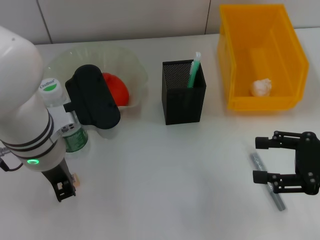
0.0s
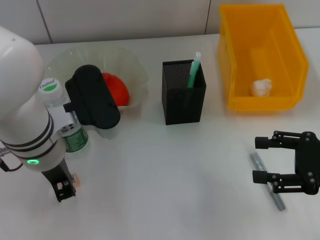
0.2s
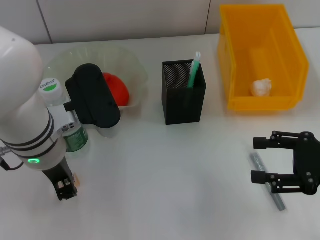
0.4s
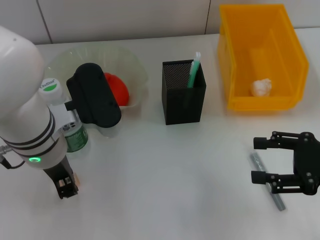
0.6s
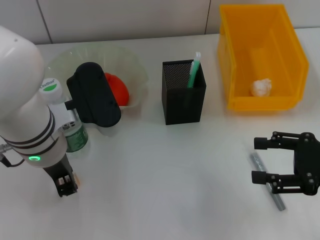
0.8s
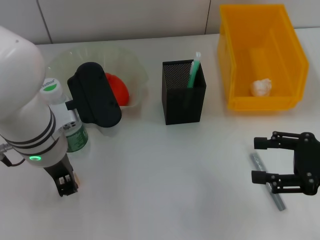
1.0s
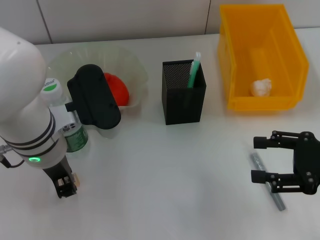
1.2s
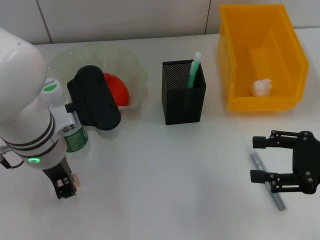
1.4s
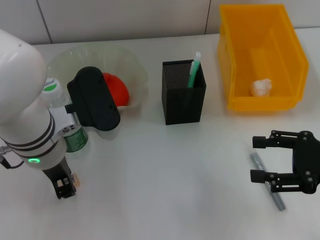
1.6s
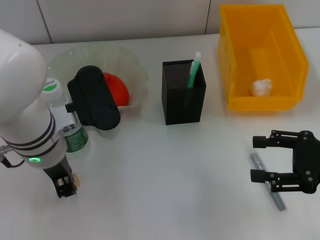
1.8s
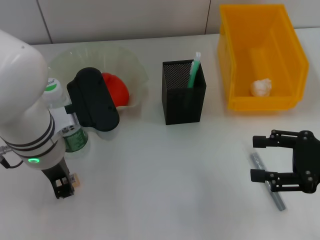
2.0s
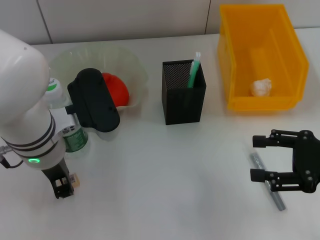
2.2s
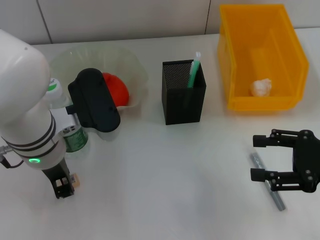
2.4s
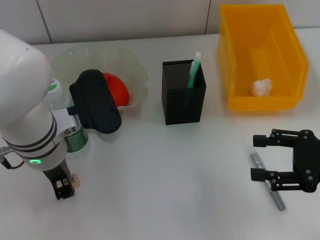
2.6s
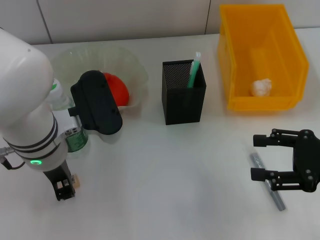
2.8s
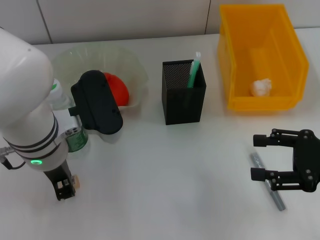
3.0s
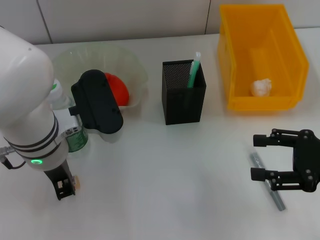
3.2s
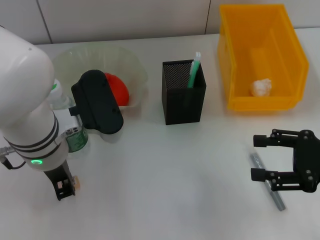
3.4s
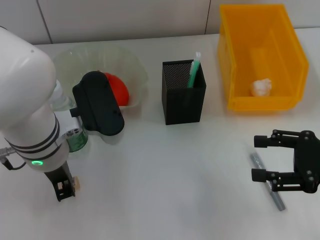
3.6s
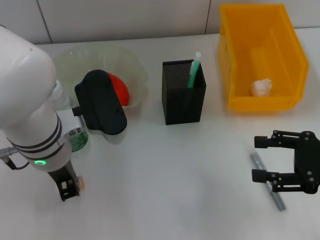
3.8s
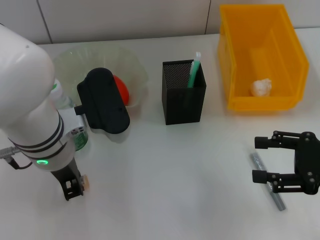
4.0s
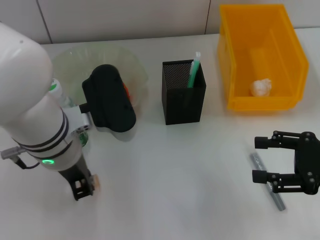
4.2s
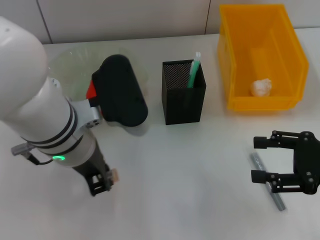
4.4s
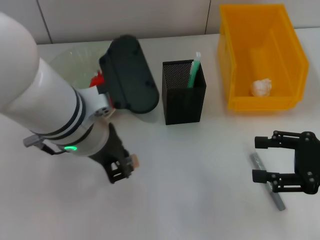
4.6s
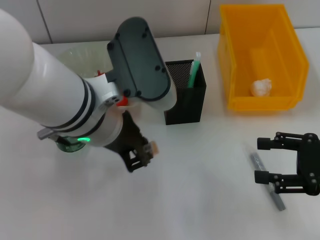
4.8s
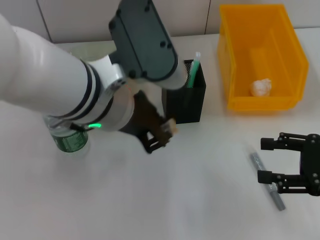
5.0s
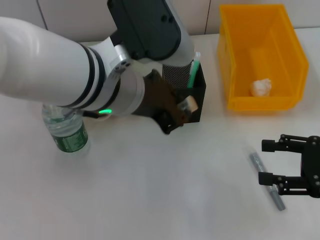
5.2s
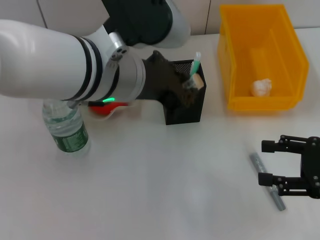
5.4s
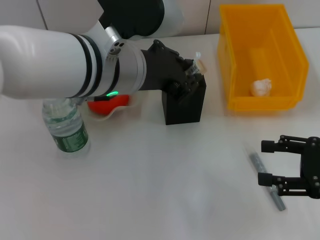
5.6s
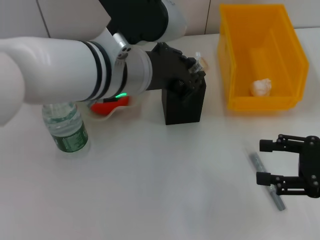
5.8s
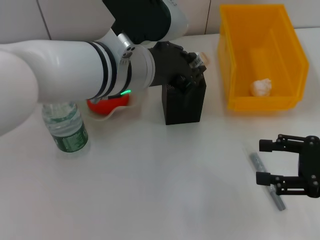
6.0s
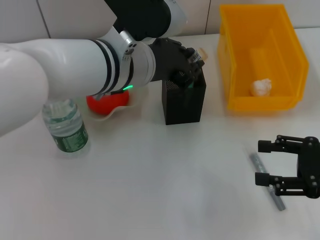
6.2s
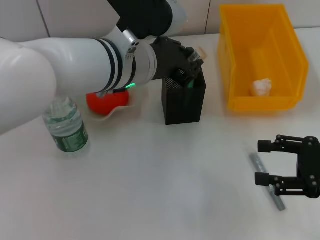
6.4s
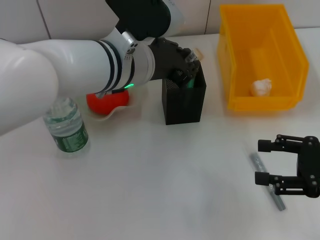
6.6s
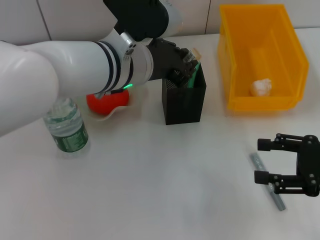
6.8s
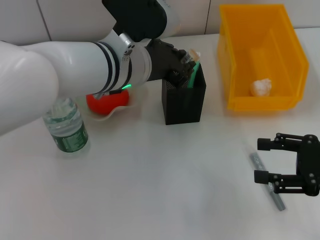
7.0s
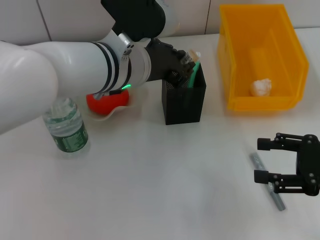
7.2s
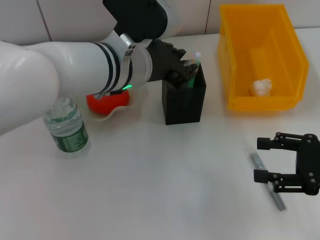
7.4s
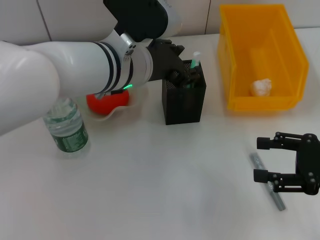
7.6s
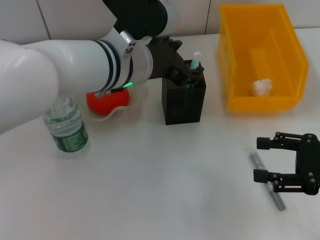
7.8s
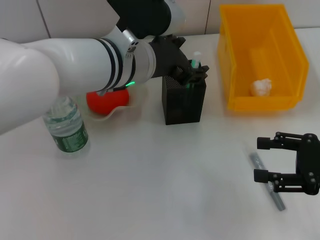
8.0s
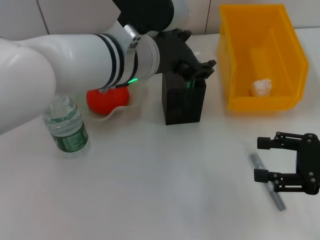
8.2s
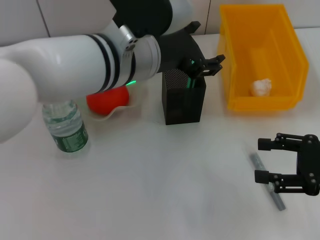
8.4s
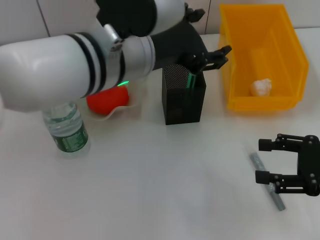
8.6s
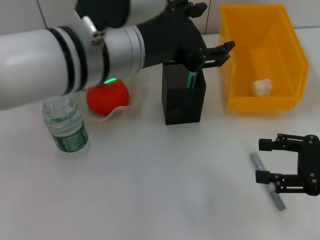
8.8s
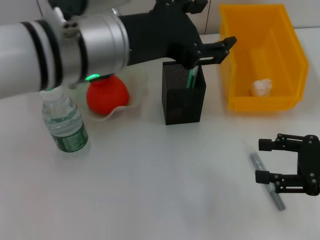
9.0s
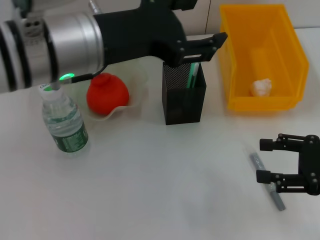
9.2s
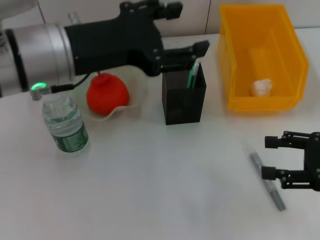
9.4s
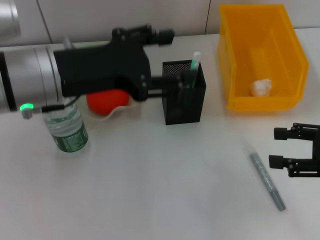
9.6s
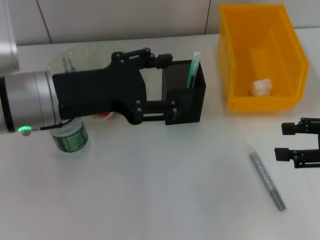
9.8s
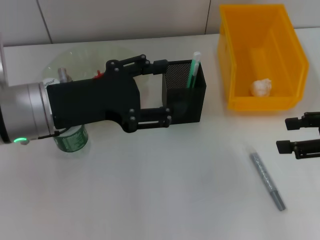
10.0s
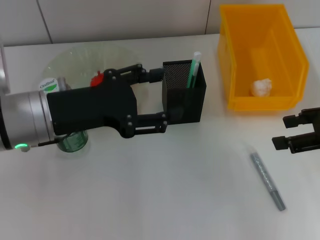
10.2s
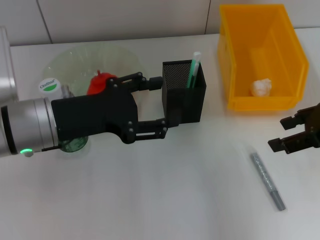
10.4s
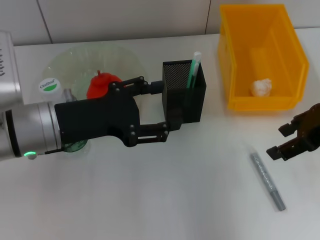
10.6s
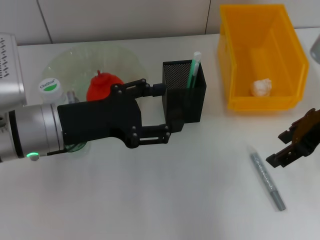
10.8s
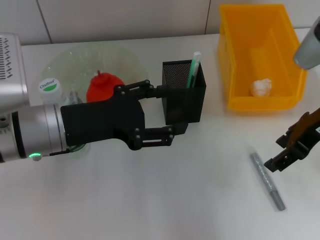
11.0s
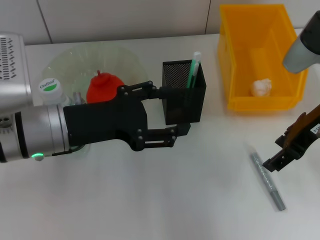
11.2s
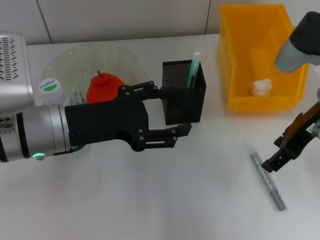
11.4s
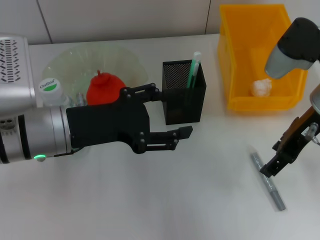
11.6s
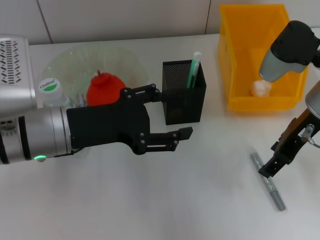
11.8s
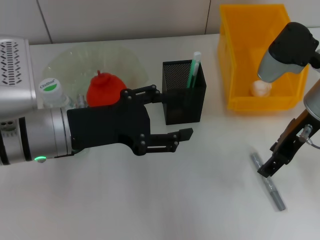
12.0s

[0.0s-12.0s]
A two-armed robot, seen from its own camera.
Step, 0.0s to 7.8s: Place the eraser into the pen holder with the left hand.
0.0s to 3.0s: Both grippers stay put.
3.0s to 4.4s: The grippers stay close to where they were, moving slightly.
4.4s to 6.0s: The left gripper is displaced to the right by some 5 cm.
6.0s to 7.6s: There are only small adjustments of the grippers.
7.6s to 9.0s: The left gripper shifts about 10 cm upward and backward, and opens its fingers.
9.0s to 10.4s: The right gripper goes some 10 cm upward and forward; the left gripper heads to the left and downward, covering some 15 cm.
10.4s to 12.0s: The right gripper heads to the left, covering some 10 cm.

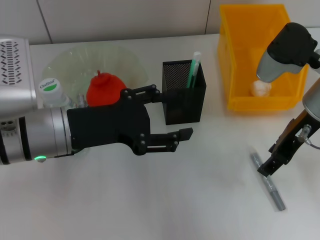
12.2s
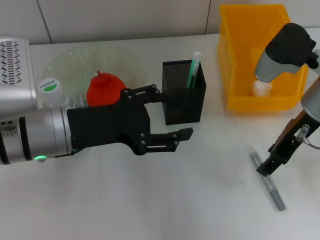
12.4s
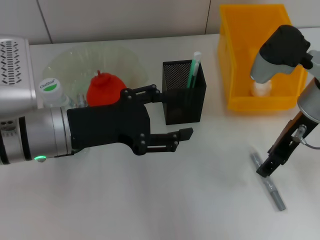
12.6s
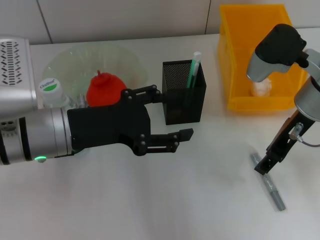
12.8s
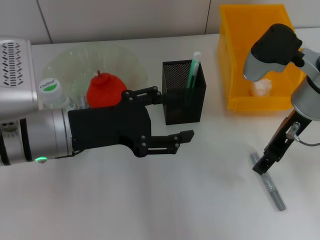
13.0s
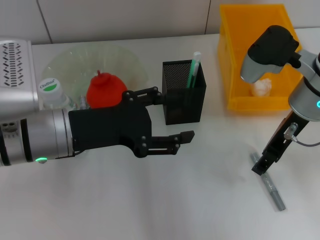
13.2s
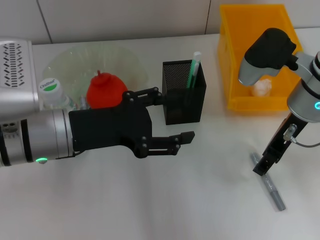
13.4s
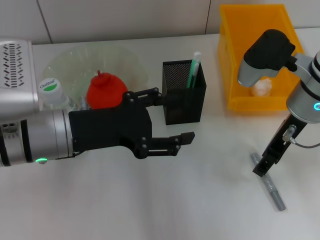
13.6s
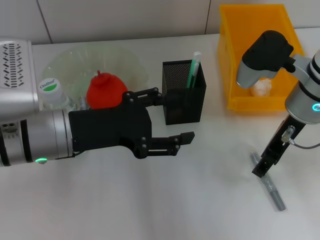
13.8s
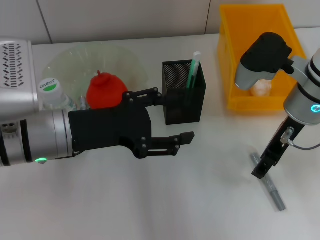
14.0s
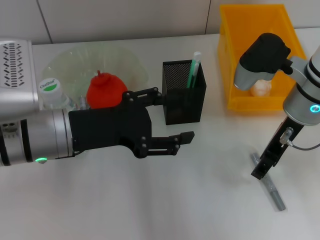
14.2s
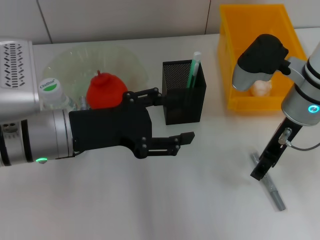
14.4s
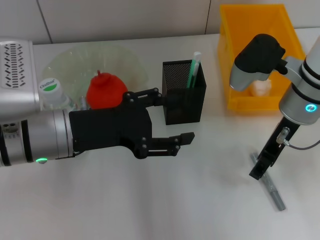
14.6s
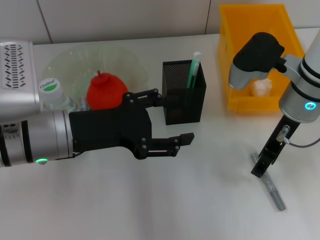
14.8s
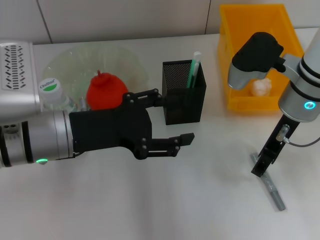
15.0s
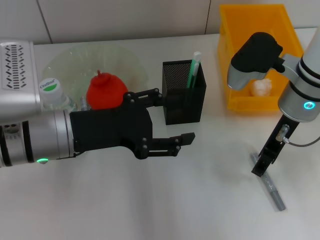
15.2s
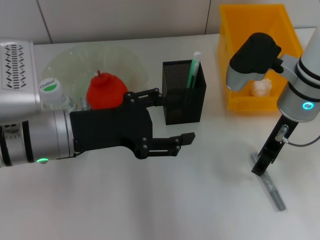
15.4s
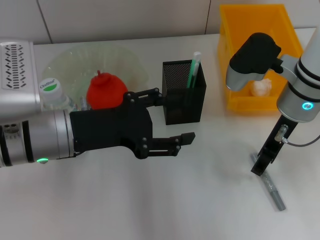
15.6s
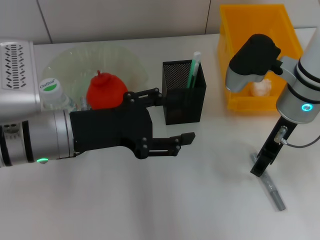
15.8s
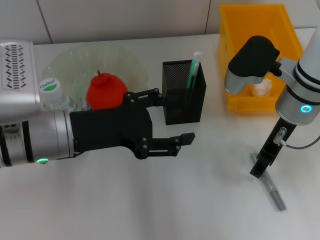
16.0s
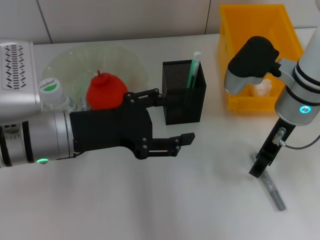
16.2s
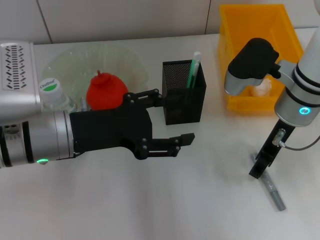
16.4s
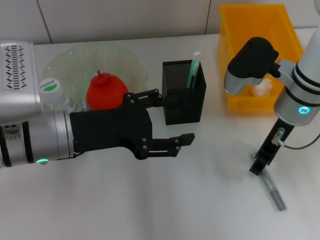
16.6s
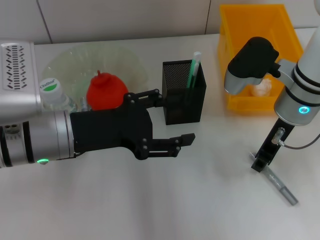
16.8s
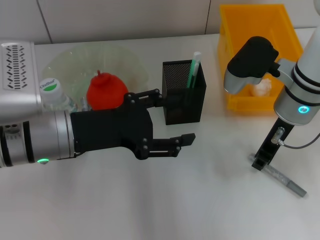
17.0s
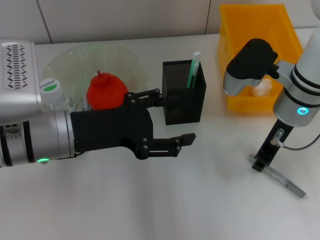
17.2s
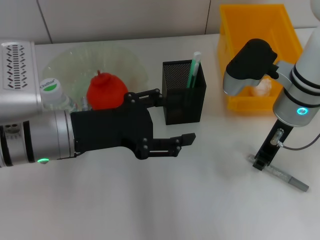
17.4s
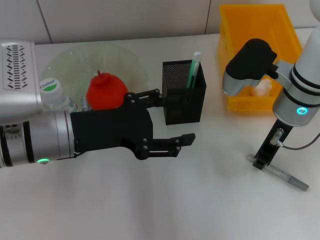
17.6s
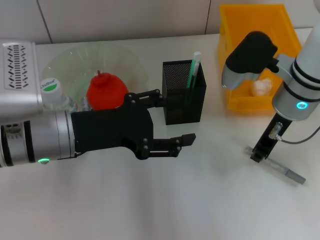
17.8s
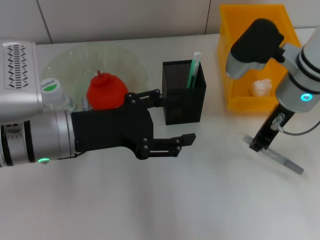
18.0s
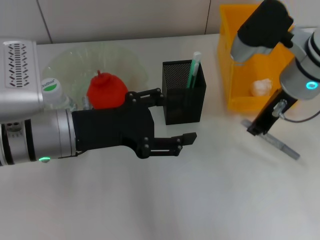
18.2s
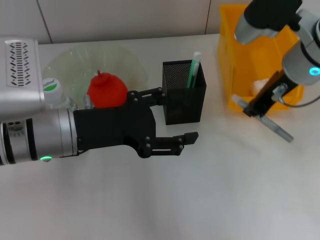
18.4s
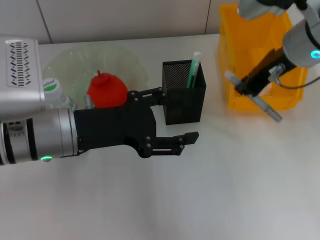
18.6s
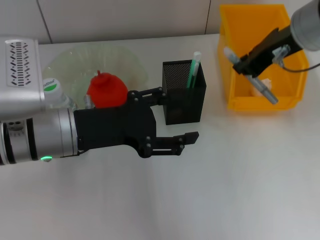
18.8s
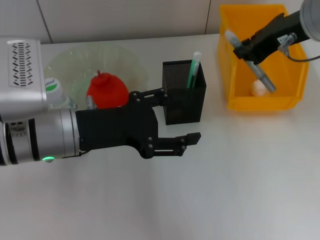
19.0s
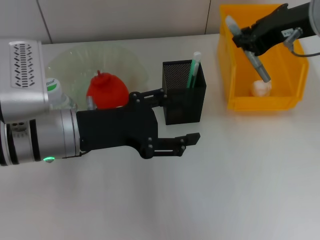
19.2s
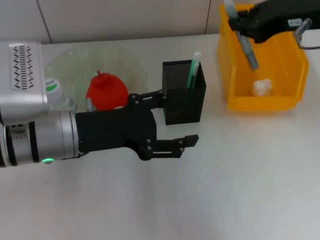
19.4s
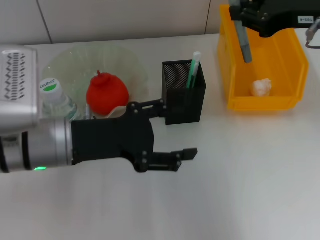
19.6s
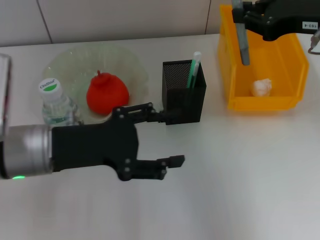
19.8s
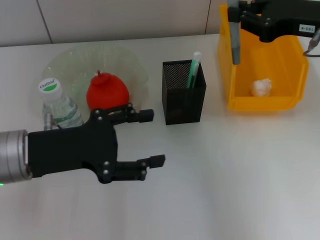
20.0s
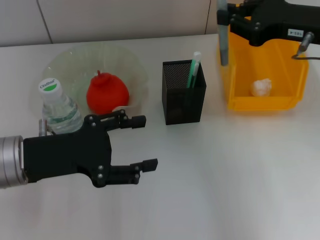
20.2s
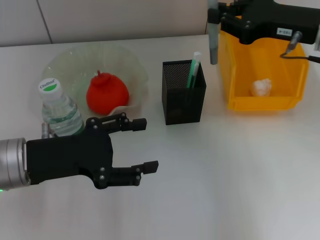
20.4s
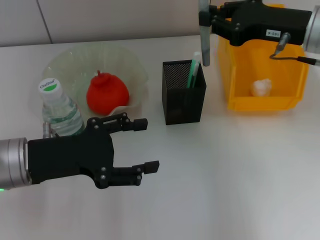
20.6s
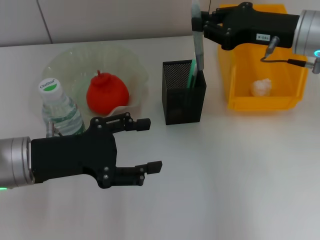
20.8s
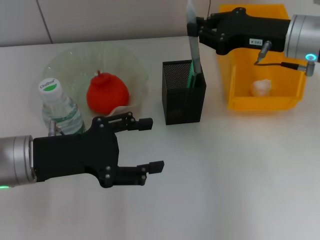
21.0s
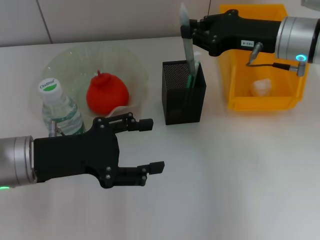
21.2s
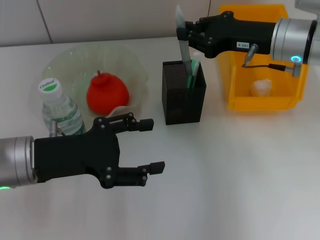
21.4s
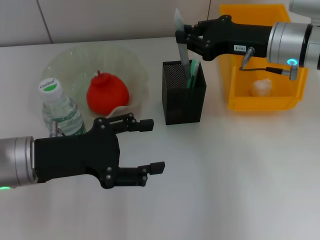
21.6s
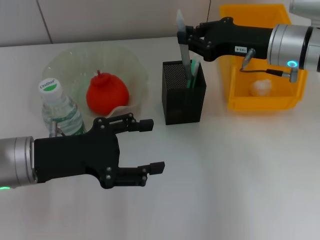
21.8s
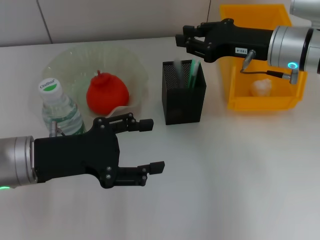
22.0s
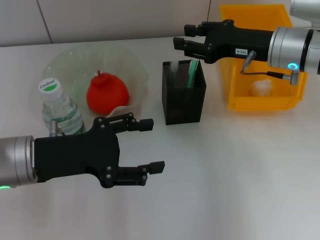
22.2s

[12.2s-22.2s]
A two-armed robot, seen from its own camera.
Step, 12.2s to 17.2s: Grab the gray glue with the right hand.
12.2s to 13.6s: The grippers stay close to where they were, moving slightly.
13.6s to 15.0s: Both grippers stay about where they are.
15.0s to 16.4s: Both grippers stay about where they are.
16.4s to 18.0s: The right gripper closes.
18.0s to 19.4s: The right gripper moves upward, some 10 cm.
19.4s to 20.8s: The right gripper goes some 10 cm downward; the left gripper is displaced to the left by about 5 cm.
20.8s to 22.2s: The grippers move only a little.
